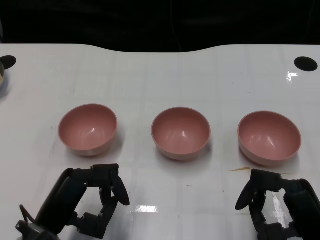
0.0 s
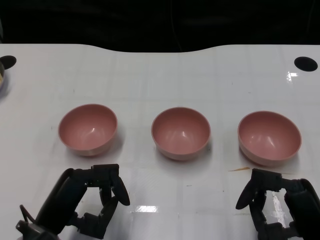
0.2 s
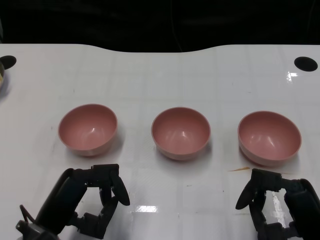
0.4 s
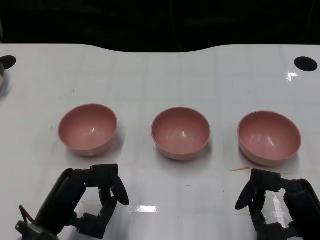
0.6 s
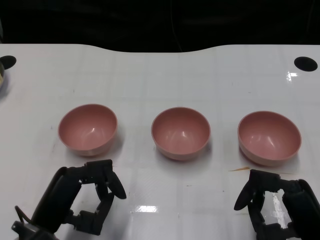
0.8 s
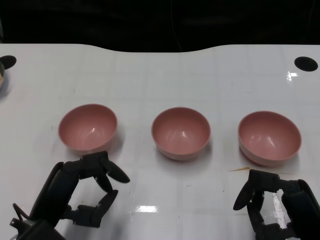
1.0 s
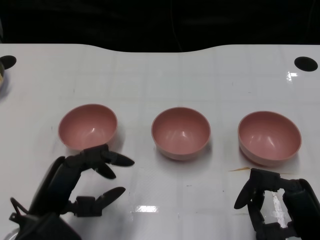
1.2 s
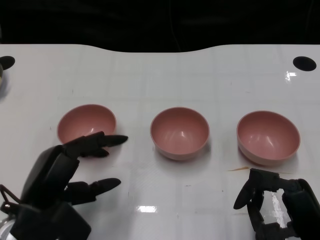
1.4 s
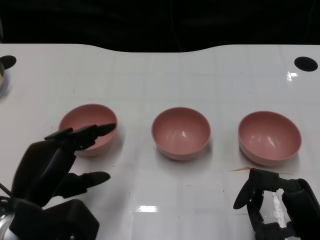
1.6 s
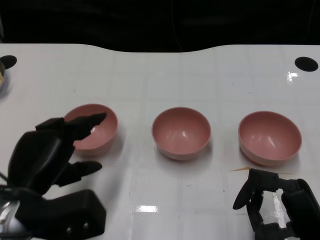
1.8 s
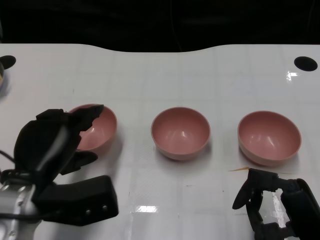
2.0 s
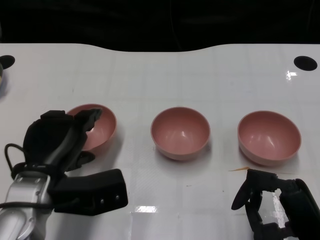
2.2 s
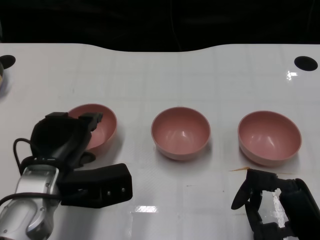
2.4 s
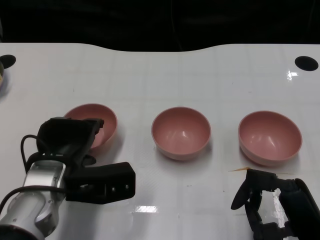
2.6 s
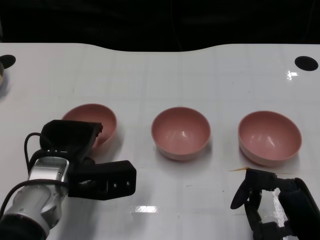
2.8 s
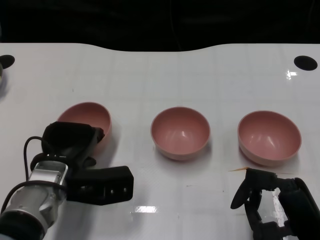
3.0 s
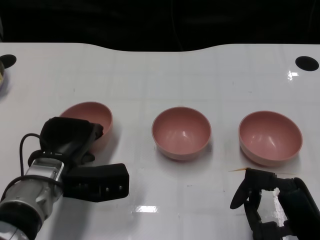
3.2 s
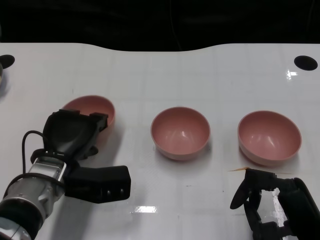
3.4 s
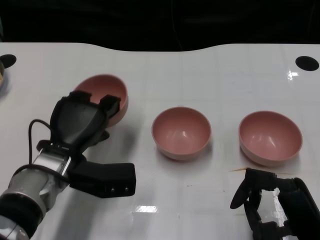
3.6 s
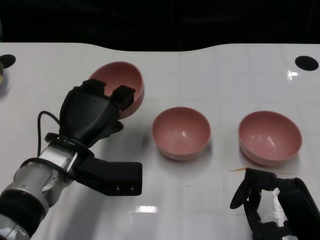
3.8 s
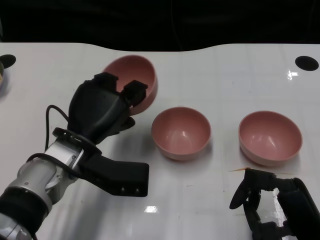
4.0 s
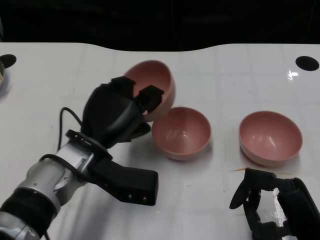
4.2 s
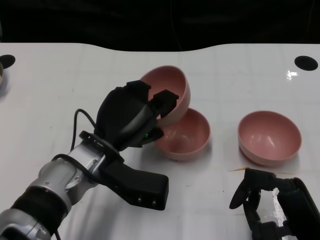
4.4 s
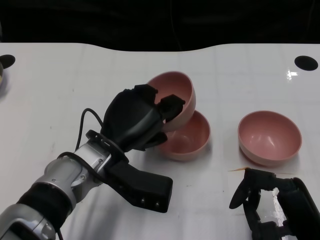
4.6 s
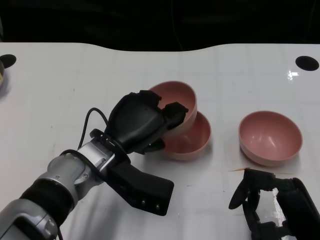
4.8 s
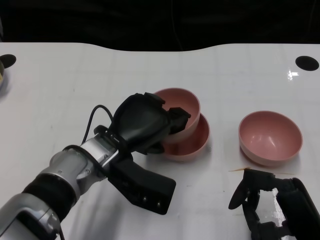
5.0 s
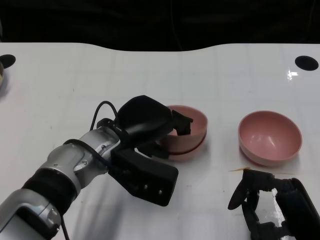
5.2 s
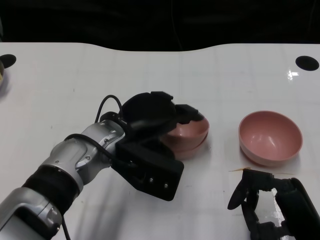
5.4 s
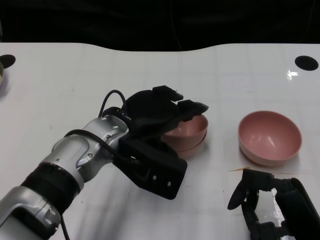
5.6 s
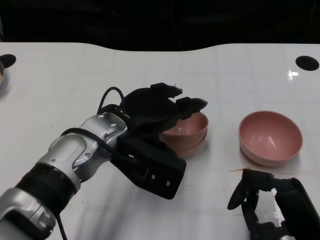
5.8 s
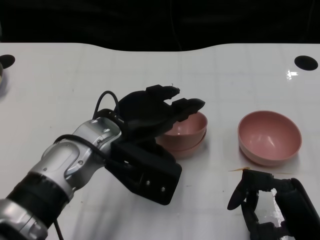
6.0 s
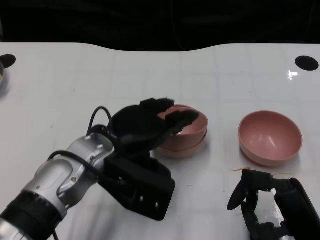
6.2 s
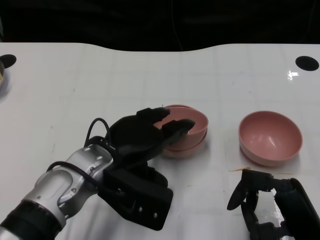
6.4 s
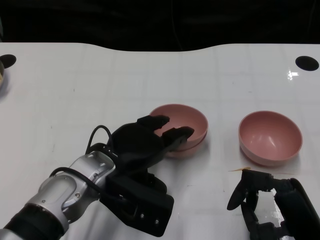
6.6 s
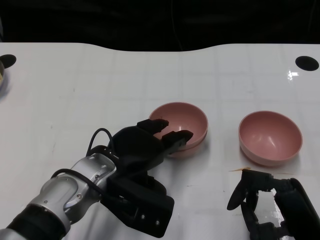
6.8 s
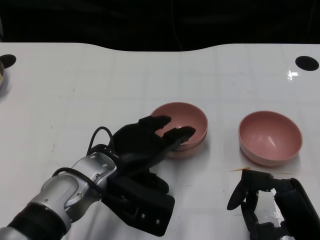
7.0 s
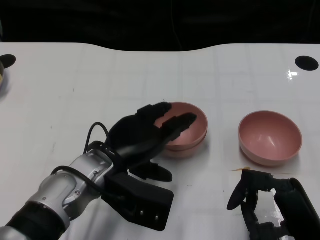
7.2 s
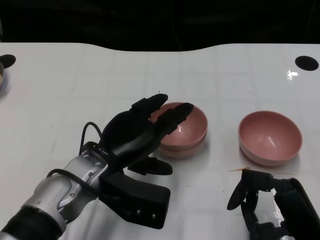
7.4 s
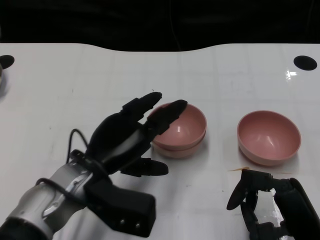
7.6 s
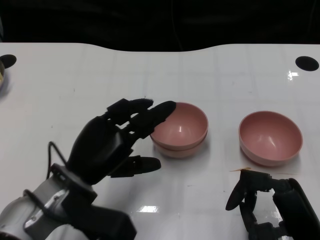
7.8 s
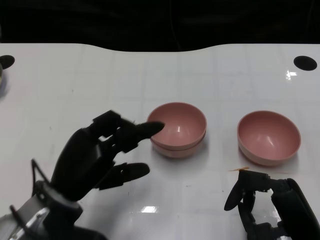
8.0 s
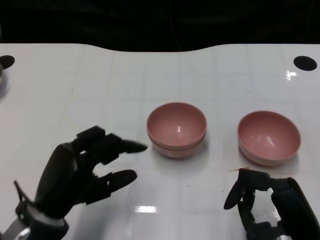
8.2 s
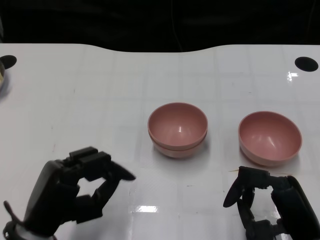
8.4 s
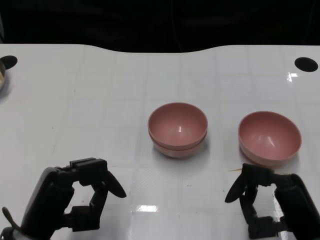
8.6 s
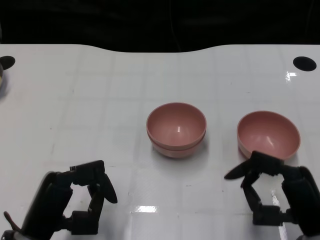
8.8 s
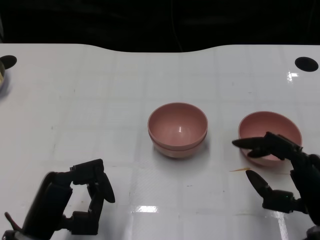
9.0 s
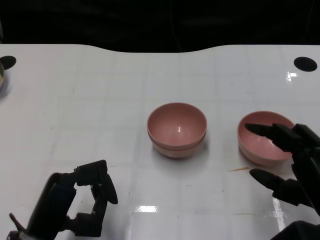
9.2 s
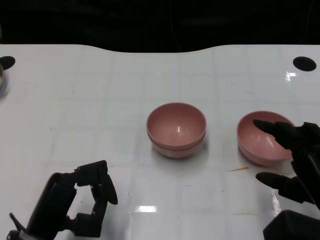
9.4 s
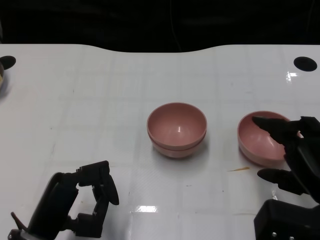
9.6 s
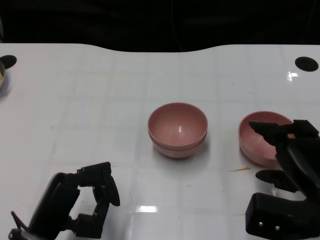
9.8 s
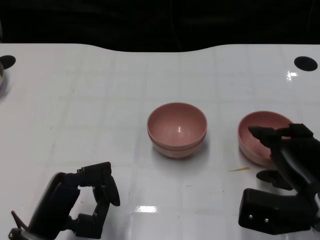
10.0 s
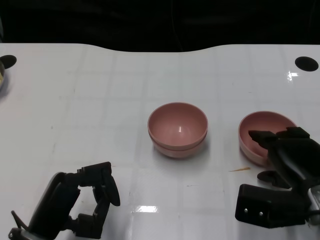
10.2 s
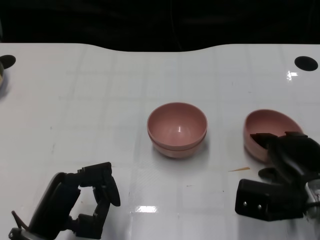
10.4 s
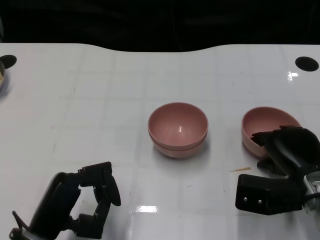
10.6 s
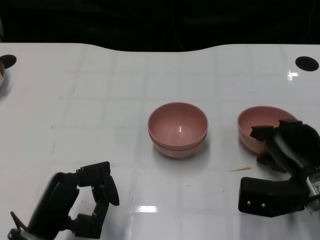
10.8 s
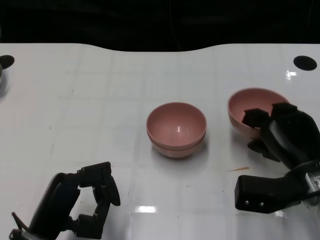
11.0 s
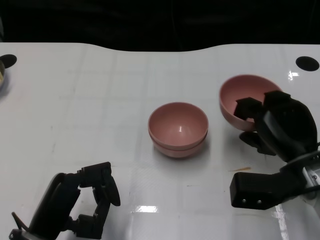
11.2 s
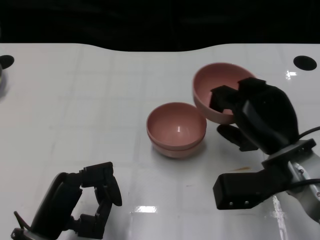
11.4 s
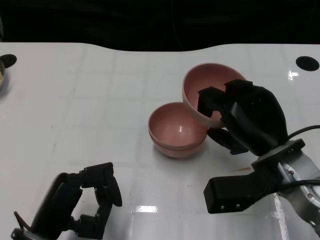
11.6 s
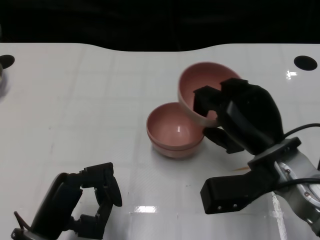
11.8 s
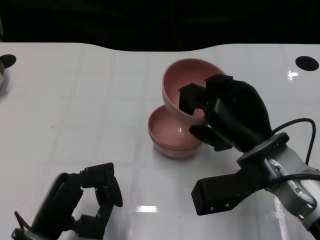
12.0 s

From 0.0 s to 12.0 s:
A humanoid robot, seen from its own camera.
Task of the whole recording: Pick up the bowl on one side of the table and place it on top of the middle bowl, then pick up the bowl on the other side of the table and place it on top of the middle bowls.
Step, from 1.2 s to 3.2 s: Grasp the bowl on the left with the left gripper.
Step, from 3.4 s to 7.6 s: Place the bowl on the left onto the bowl in the middle with left gripper.
Step, from 7.8 s to 10.6 s: Grasp the bowl on the right with the right gripper.
From 1.6 s to 3.0 s: The left hand moves forward, some 10 cm.
From 3.0 s to 4.4 s: The left hand is displaced to the right by about 5 cm.
From 6.0 s to 7.6 s: The left hand changes place by about 5 cm.
From 7.6 s to 9.0 s: The left hand shifts some 10 cm backward and to the left.
From 9.0 s to 10.4 s: The right hand travels forward by about 10 cm.
From 10.4 s to 12.0 s: The right hand goes roughly 10 cm to the left and upward.

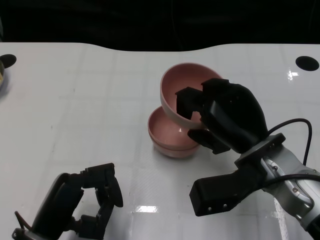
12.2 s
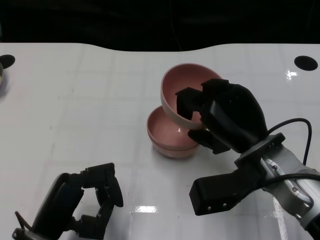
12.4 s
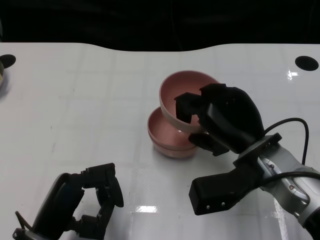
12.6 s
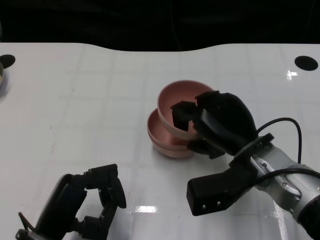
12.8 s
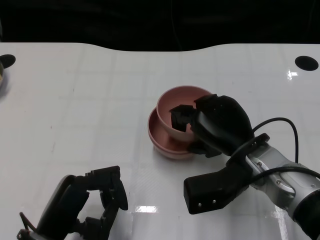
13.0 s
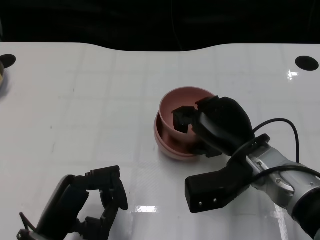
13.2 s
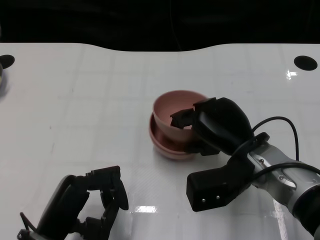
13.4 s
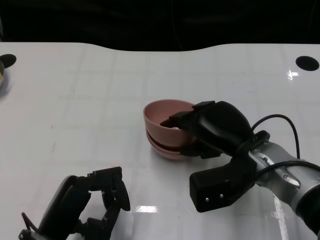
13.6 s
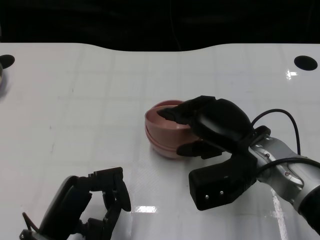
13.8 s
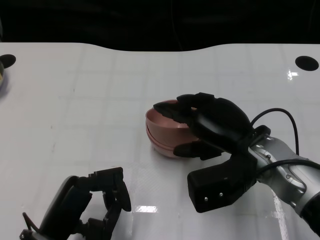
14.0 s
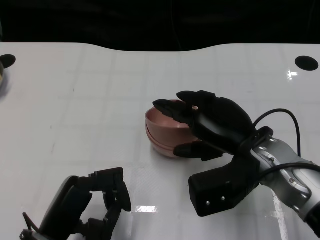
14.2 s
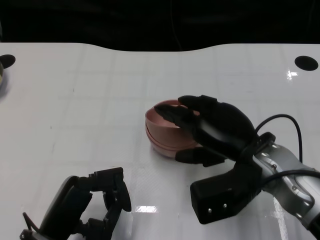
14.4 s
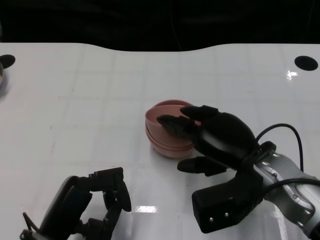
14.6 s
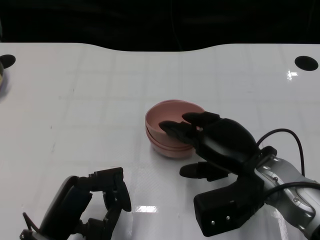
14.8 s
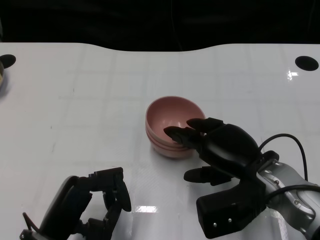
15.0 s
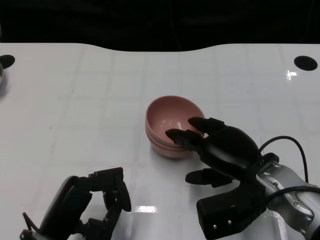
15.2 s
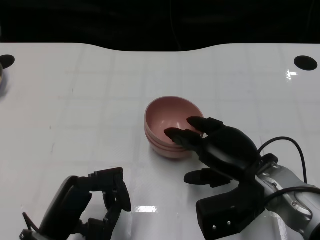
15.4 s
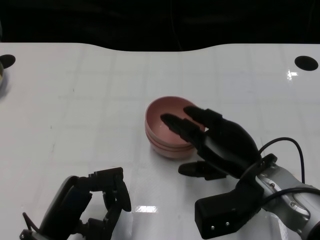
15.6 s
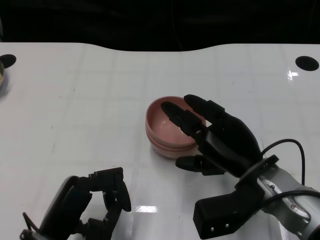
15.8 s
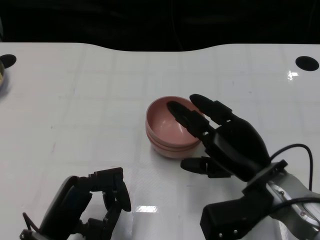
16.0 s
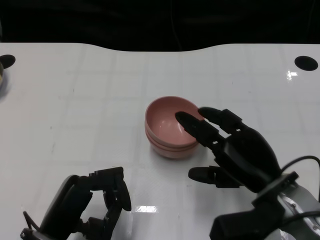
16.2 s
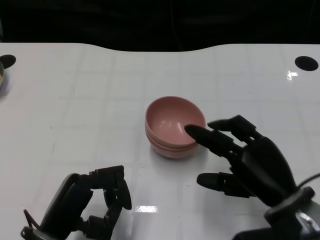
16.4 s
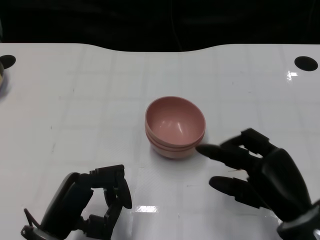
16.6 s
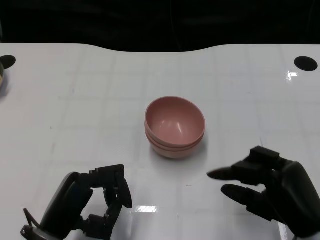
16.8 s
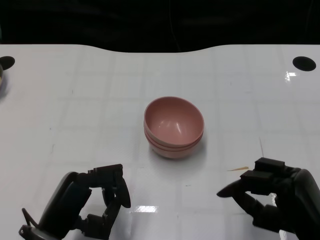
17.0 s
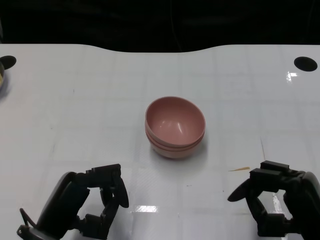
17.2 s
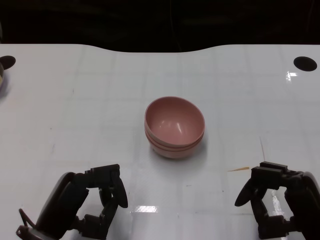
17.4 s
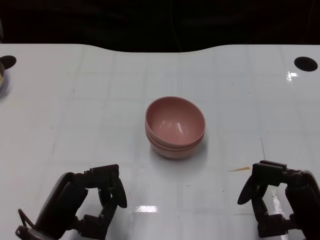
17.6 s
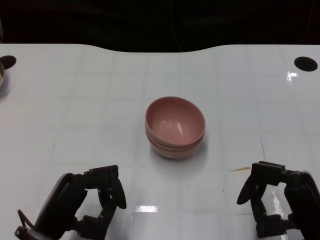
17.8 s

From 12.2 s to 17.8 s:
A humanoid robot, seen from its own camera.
Task of the whole recording: Pick up the bowl on one side of the table and place it on top of the middle bowl, then pick up the bowl on the other side of the table and place it on top of the middle bowls.
Step, from 12.2 s to 16.4 s: Place the bowl on the right onto the bowl in the middle with right gripper.
From 13.6 s to 15.0 s: The hands make only small movements.
From 15.0 s to 16.4 s: The right hand moves some 5 cm.
From 16.4 s to 17.8 s: The right hand is displaced backward by about 5 cm.

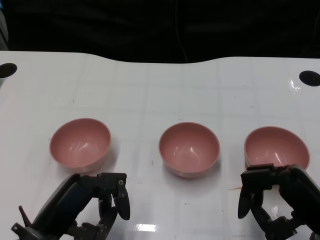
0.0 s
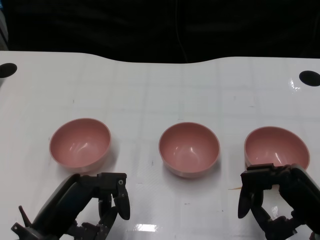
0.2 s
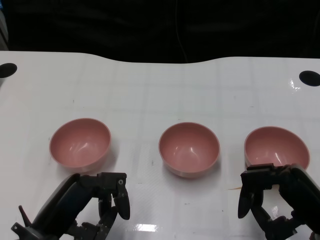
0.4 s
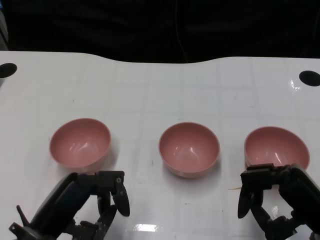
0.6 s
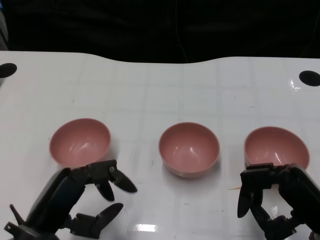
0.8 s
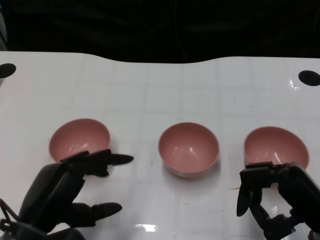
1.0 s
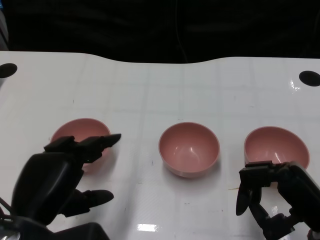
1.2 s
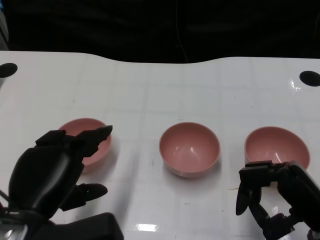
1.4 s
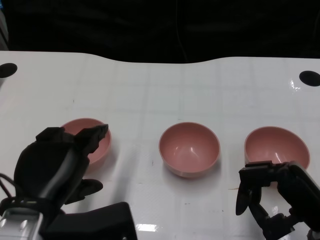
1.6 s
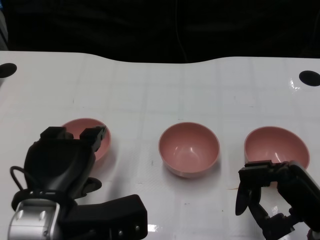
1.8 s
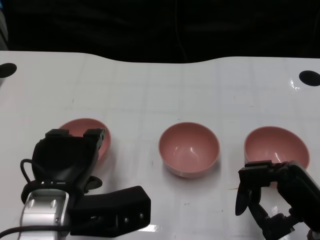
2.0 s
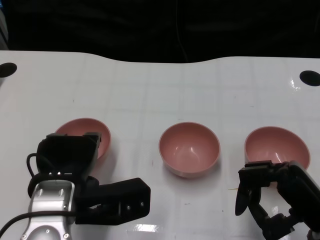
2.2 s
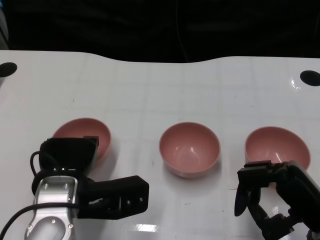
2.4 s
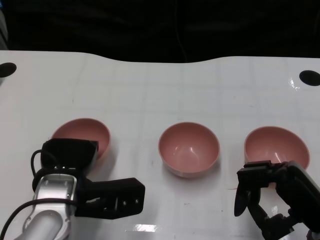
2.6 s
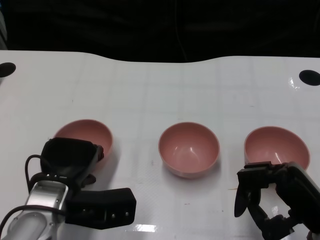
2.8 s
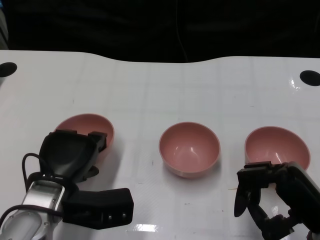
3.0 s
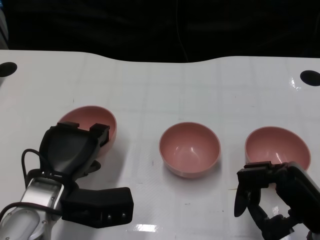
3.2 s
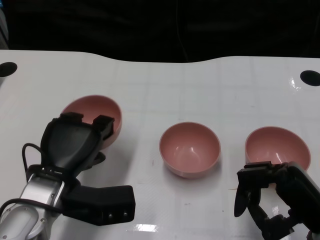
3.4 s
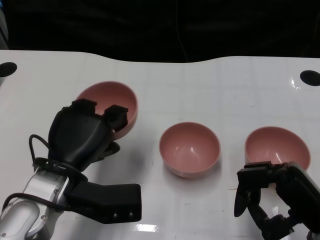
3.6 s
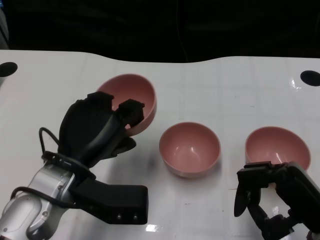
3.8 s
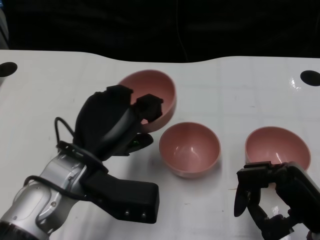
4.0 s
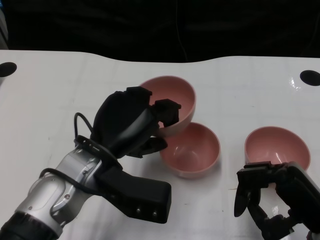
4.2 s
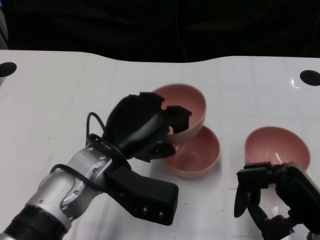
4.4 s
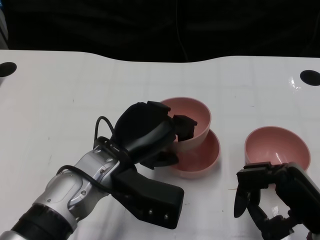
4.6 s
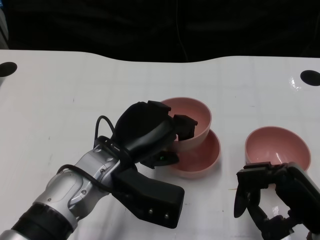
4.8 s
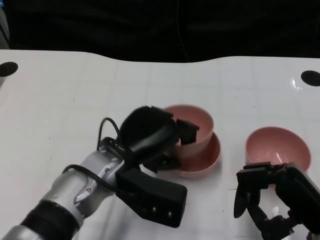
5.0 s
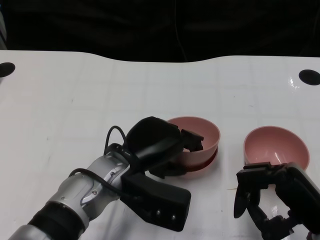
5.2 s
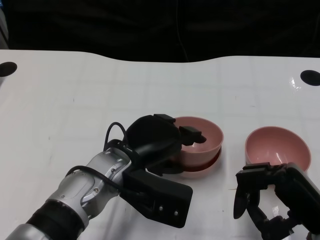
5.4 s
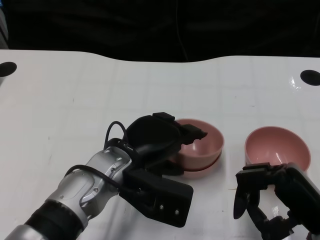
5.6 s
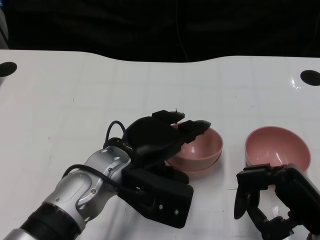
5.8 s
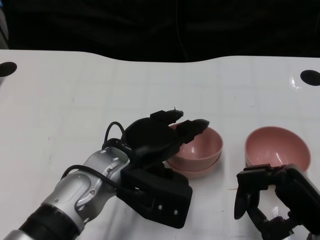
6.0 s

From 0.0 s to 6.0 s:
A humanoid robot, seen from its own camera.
Task of the whole recording: Pick up the bowl on one side of the table and place it on top of the middle bowl, then pick up the bowl on the other side of the table and place it on top of the middle bowls.
Step, from 0.8 s to 3.2 s: Grasp the bowl on the left with the left gripper.
Step, from 3.4 s to 5.8 s: Place the bowl on the left onto the bowl in the middle with left gripper.
From 1.6 s to 3.0 s: The left hand travels forward and downward by about 10 cm.
From 3.0 s to 4.4 s: The left hand travels to the right and upward by roughly 10 cm.
